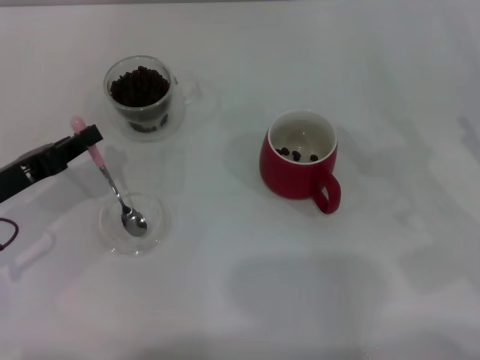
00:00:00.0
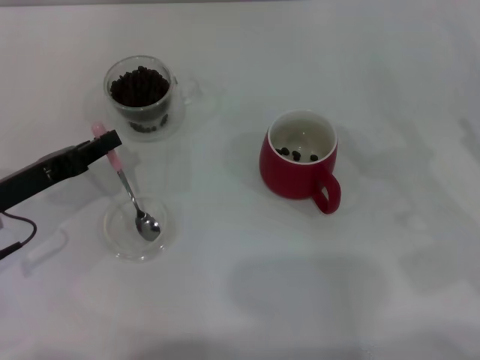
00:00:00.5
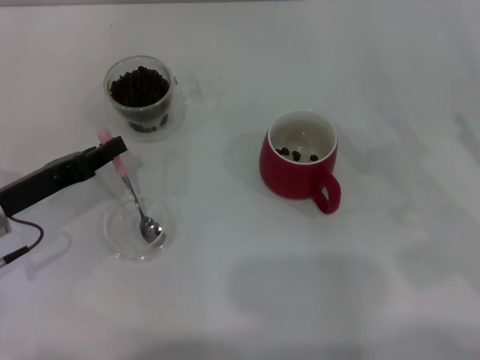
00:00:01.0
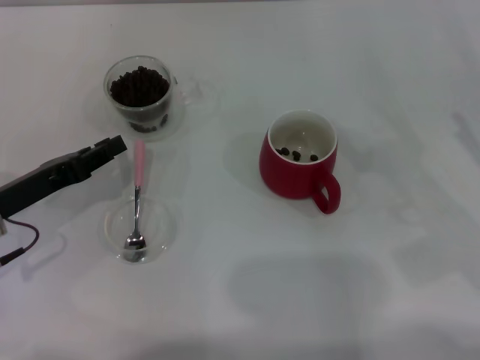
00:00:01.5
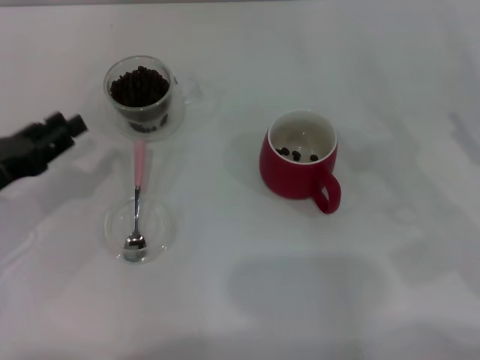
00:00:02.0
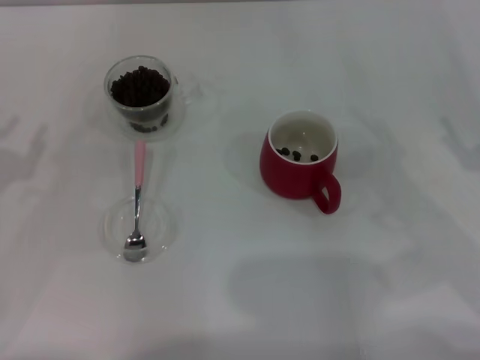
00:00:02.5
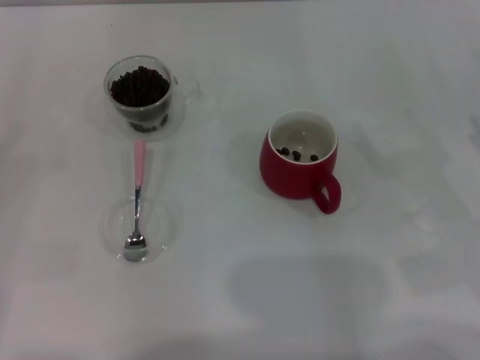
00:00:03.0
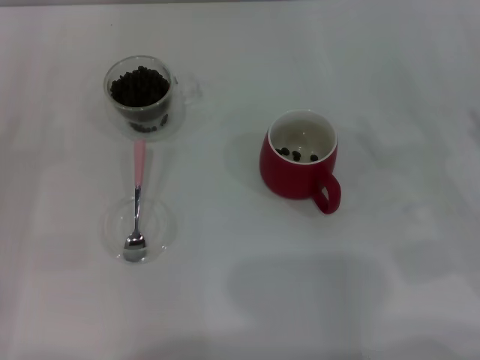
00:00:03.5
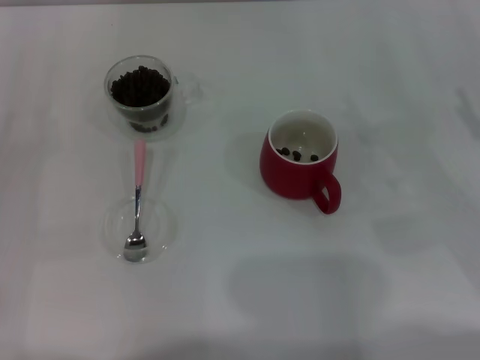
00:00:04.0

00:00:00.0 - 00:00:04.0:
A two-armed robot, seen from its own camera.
Task of the whole recording: Use a pink spoon to take out the coffee beans from the glass and pour them into the red cup.
00:00:00.0 - 00:00:02.0: The left gripper opens.
00:00:02.0 - 00:00:04.0: The left gripper moves to the left, some 5 cm.
